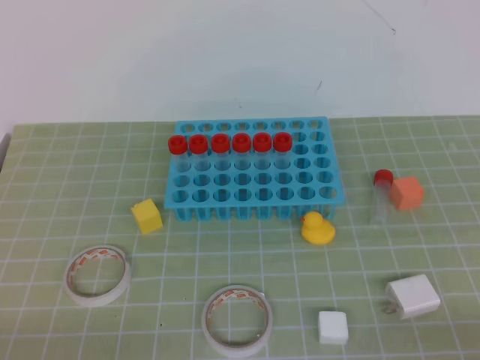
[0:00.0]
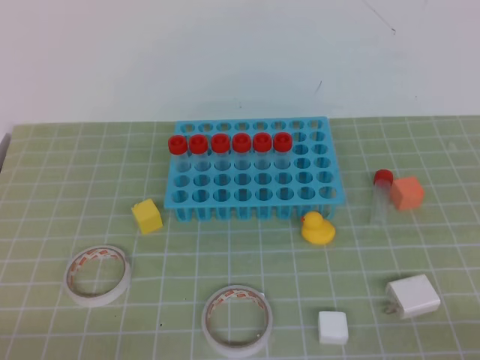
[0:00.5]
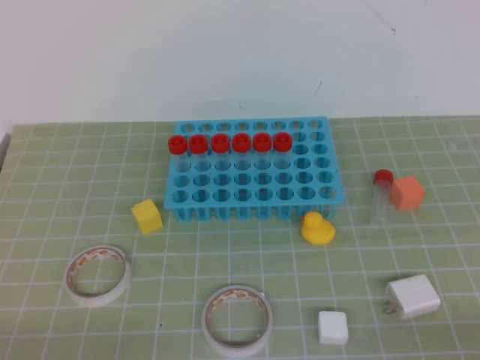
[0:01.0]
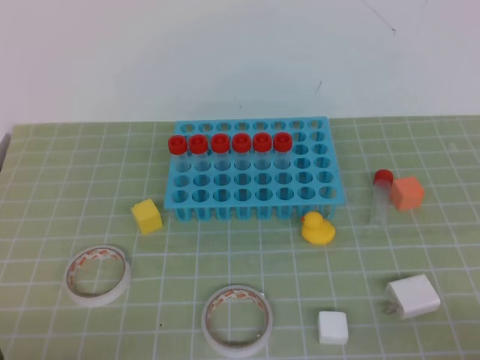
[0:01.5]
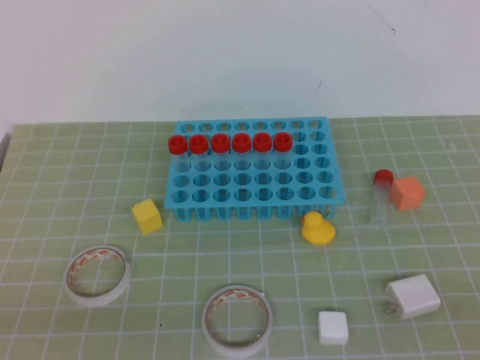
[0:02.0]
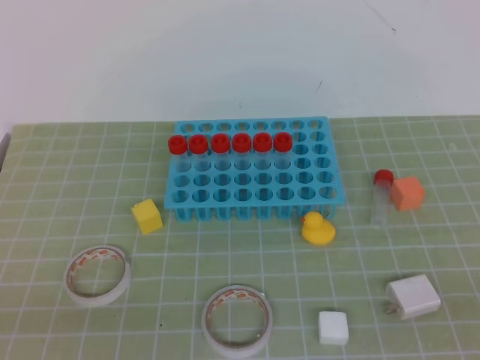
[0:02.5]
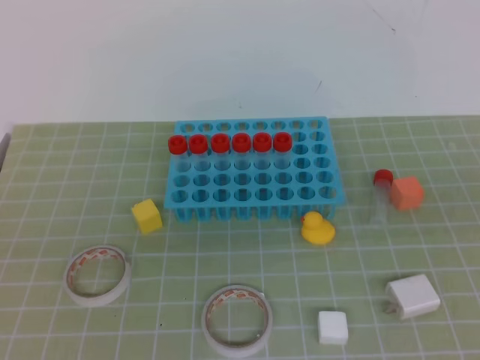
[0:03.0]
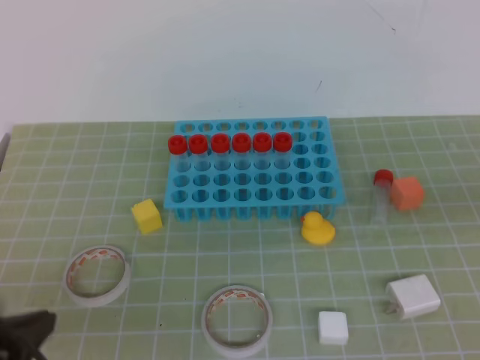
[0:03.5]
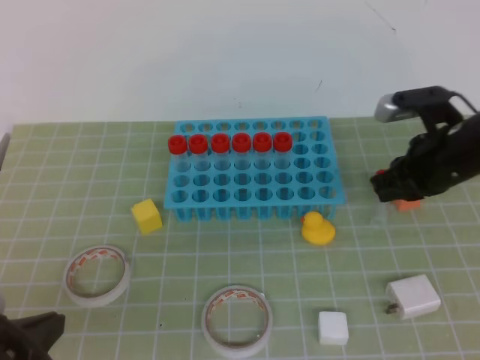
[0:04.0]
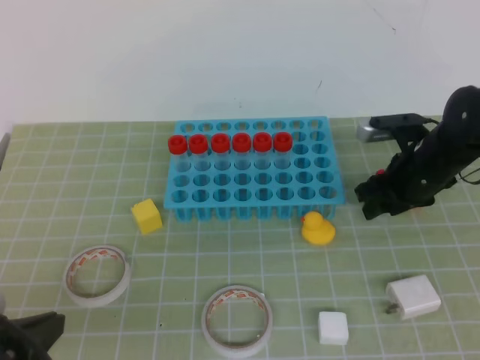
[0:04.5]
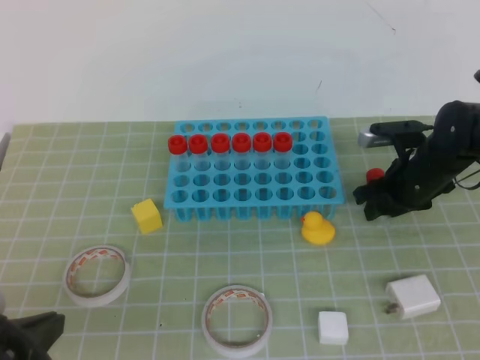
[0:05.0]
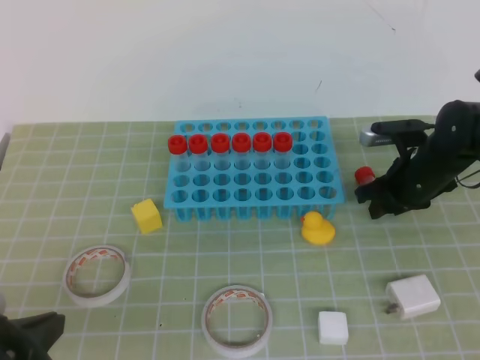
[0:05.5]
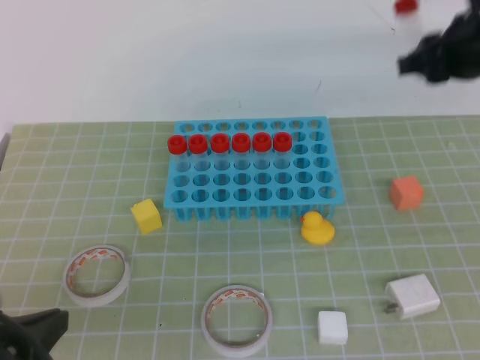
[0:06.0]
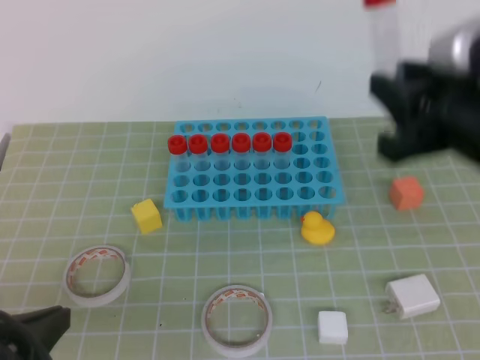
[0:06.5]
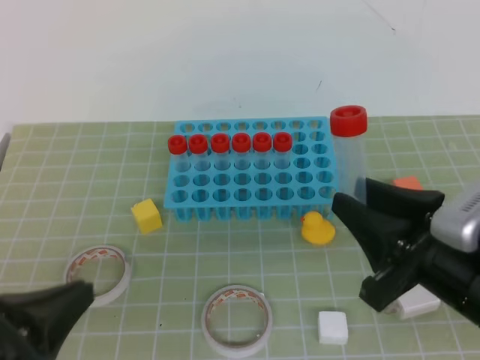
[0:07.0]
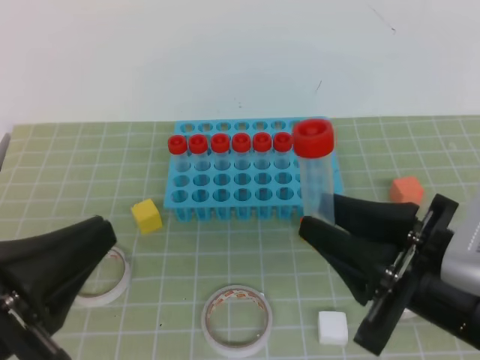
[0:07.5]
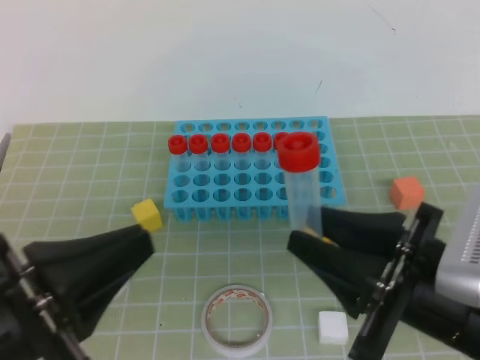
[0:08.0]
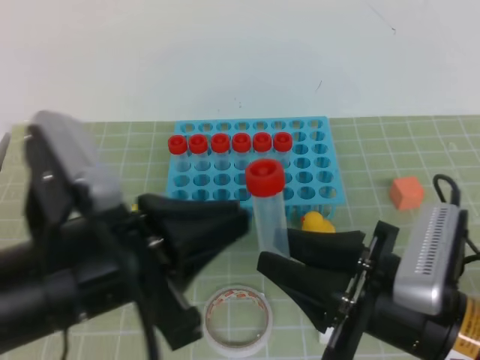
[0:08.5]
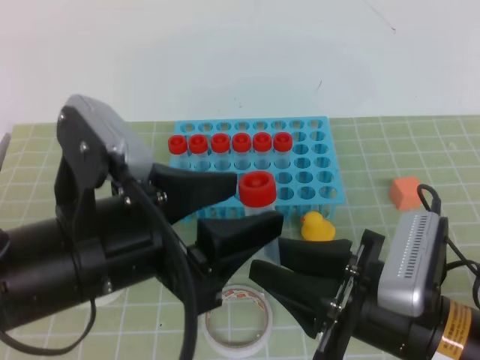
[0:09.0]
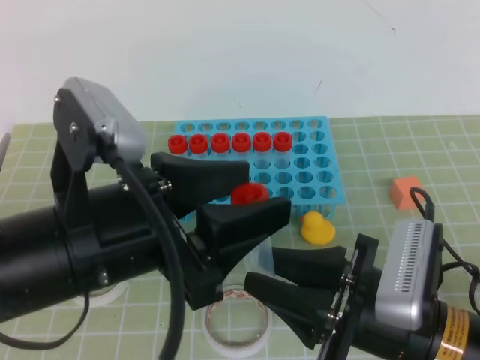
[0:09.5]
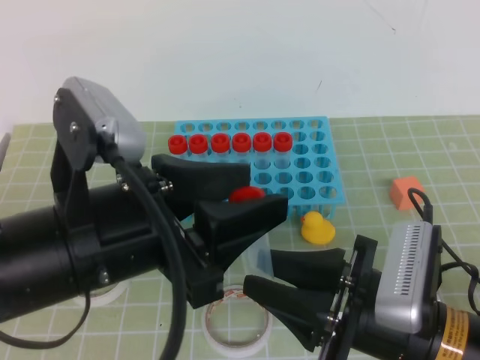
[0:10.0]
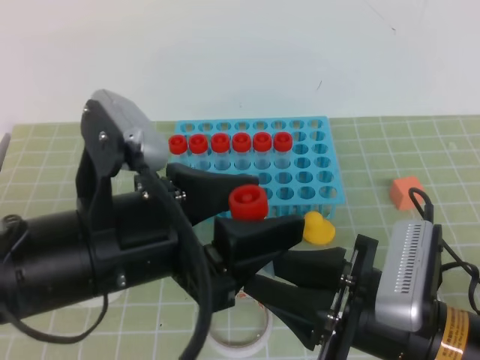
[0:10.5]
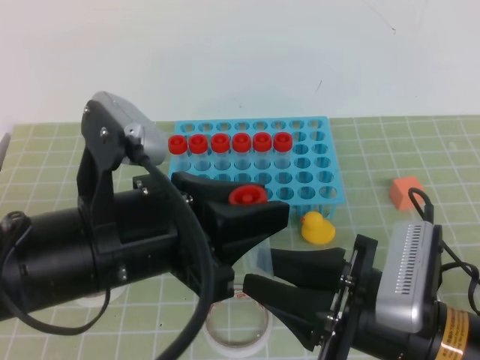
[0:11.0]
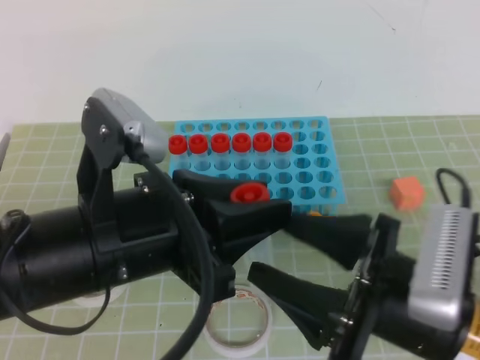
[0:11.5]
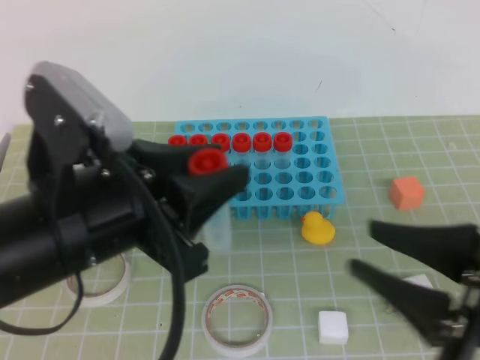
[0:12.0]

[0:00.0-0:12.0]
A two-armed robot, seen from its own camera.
0:02.0 to 0:04.0: The right gripper is displaced forward by some 30 cm, while the left gripper shifts approximately 5 cm forward, and goes upward and returns, about 10 cm each way.
0:04.0 to 0:06.0: The right gripper is displaced upward by about 10 cm, and opens its fingers.
0:06.0 to 0:08.0: The right gripper travels backward by roughly 25 cm. Meanwhile the left gripper goes about 5 cm upward.
0:08.0 to 0:10.0: The left gripper travels to the right and forward by approximately 10 cm, and opens. The right gripper changes place by roughly 5 cm.
0:10.0 to 0:12.0: The right gripper heads upward and to the right, covering some 10 cm. The left gripper closes its fingers.

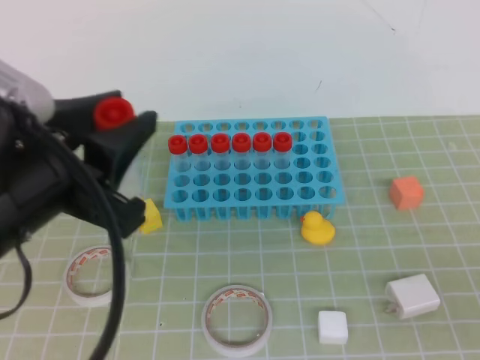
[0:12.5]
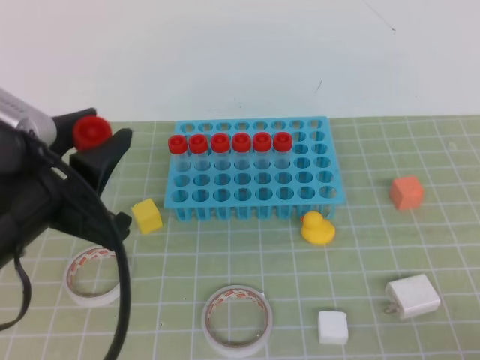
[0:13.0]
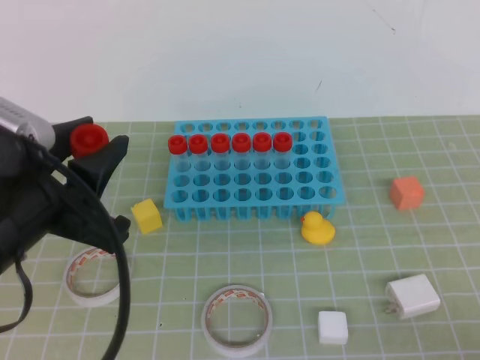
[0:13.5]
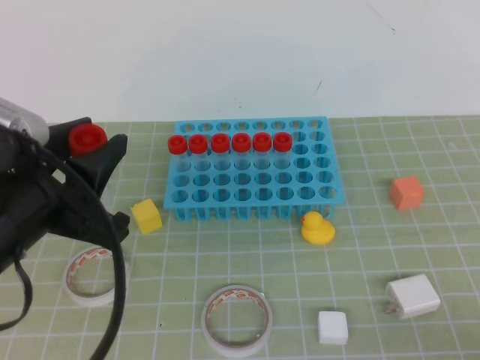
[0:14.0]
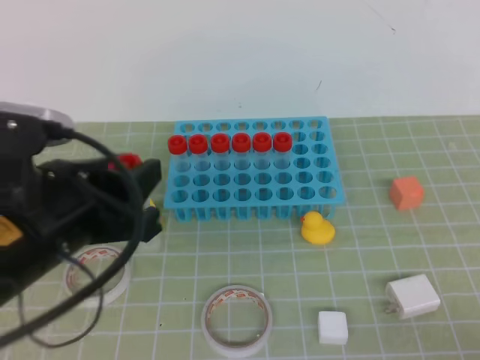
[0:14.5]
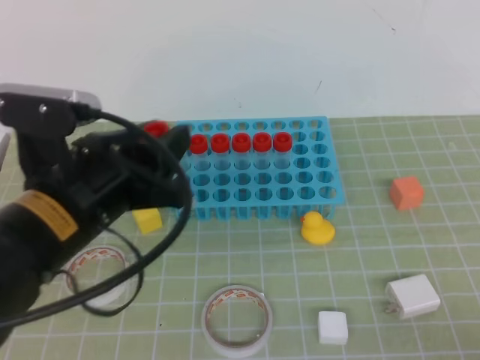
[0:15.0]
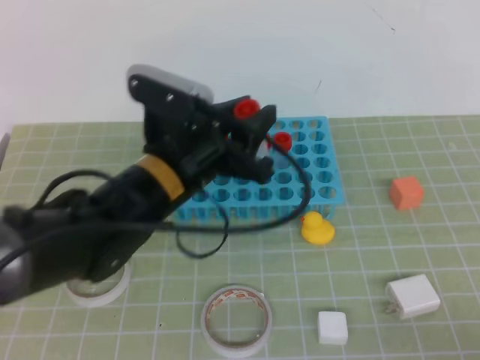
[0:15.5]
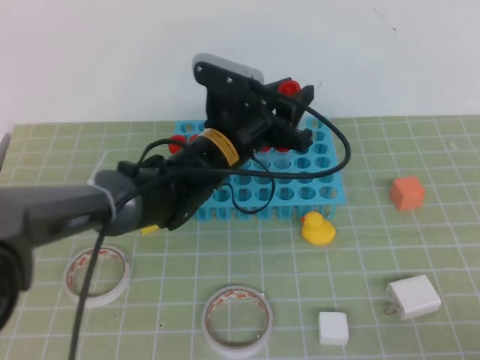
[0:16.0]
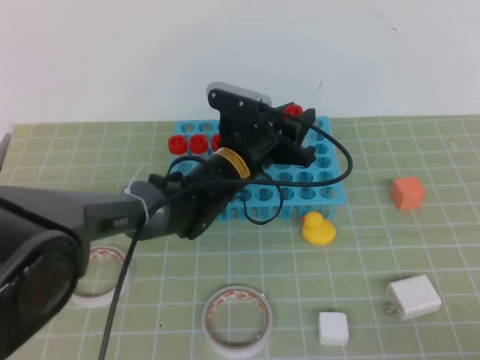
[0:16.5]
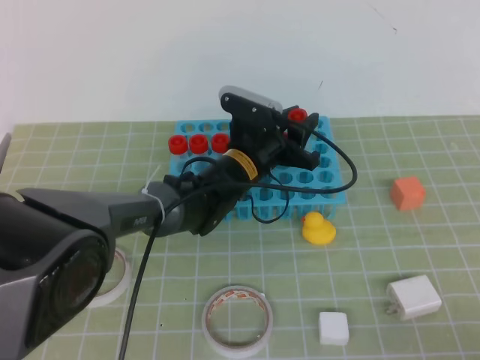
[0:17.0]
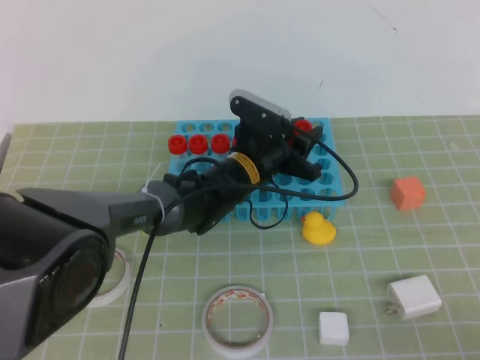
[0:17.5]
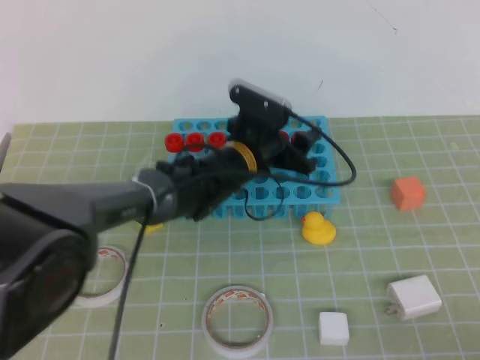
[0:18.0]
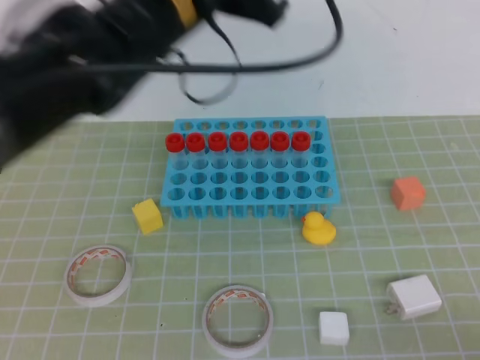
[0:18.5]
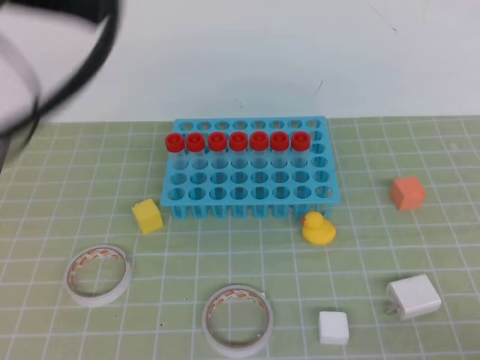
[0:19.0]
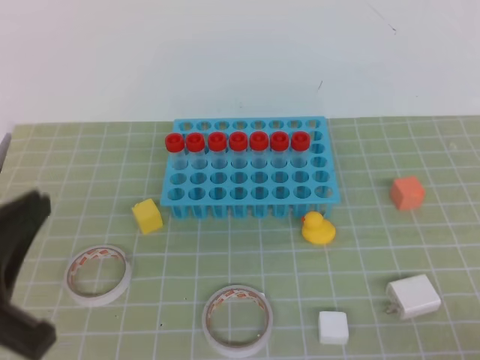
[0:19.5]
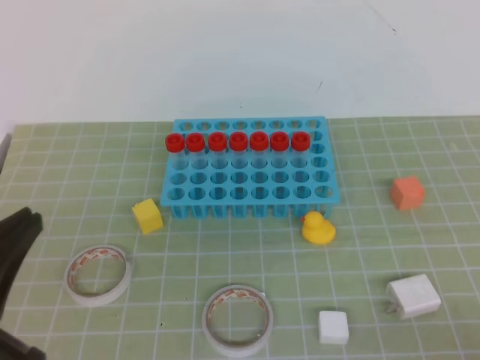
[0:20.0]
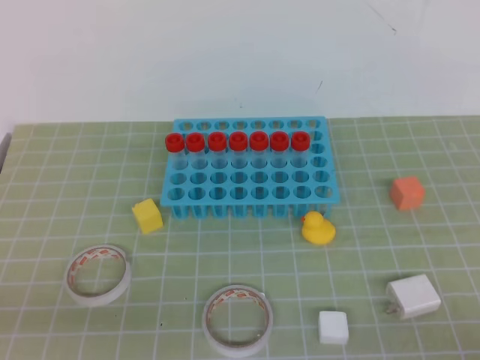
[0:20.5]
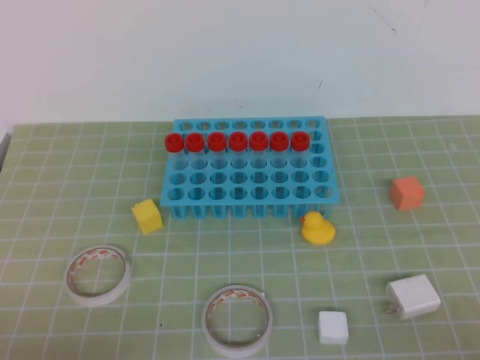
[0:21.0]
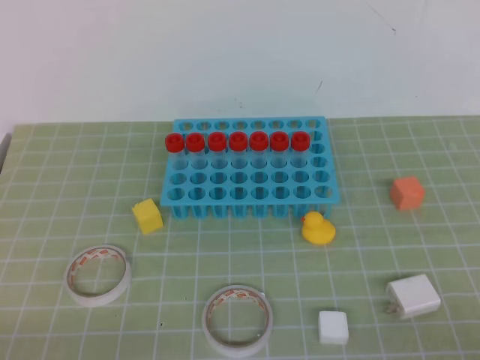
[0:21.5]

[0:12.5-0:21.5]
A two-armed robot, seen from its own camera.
0:12.5 to 0:14.5: The right gripper shifts by about 5 cm.
0:14.5 to 0:17.0: The left gripper travels forward, to the right and downward by about 35 cm.
0:17.0 to 0:19.5: The left gripper travels backward, to the left and upward by roughly 40 cm, and closes its fingers.
0:19.5 to 0:21.5: The left gripper travels downward by roughly 15 cm.

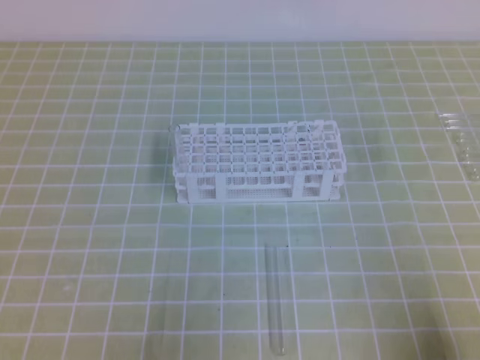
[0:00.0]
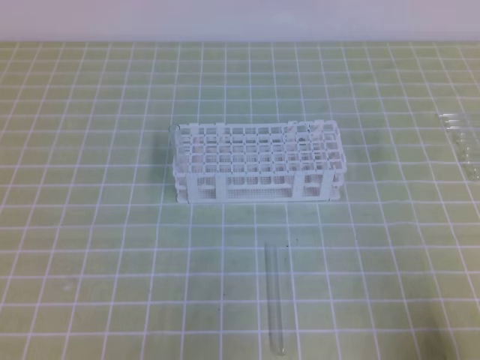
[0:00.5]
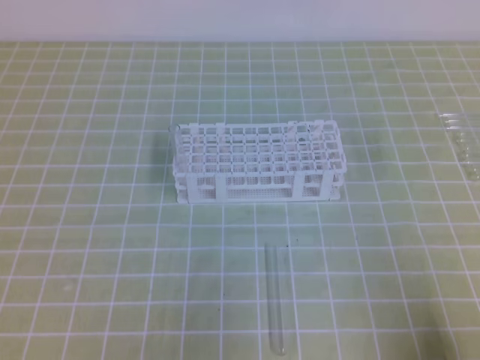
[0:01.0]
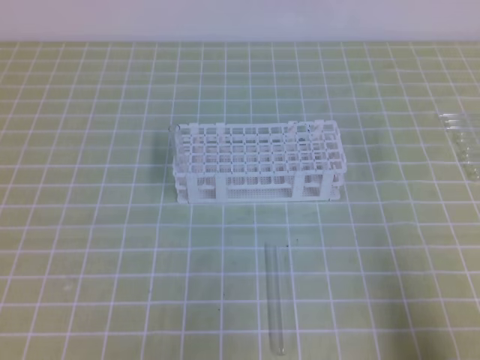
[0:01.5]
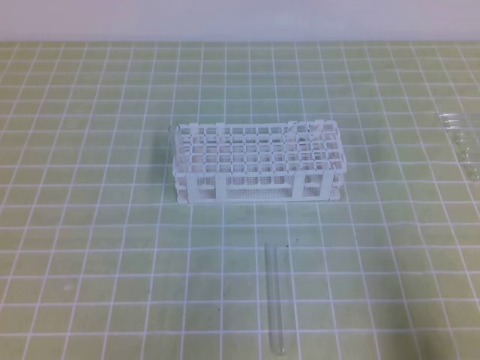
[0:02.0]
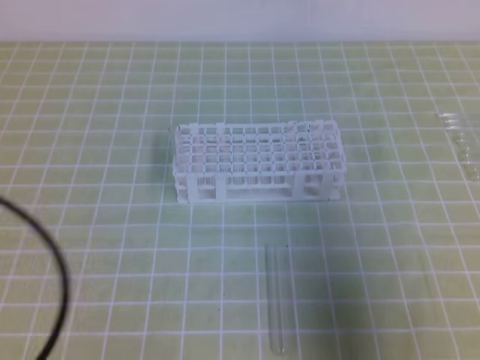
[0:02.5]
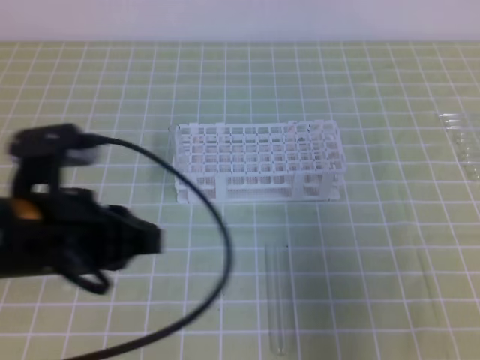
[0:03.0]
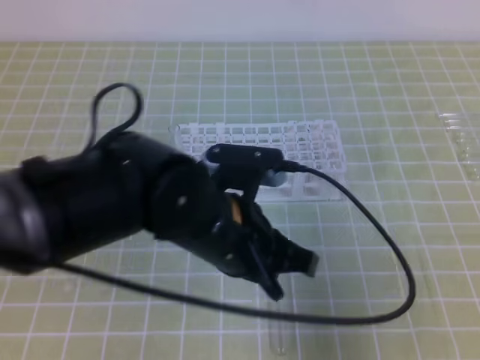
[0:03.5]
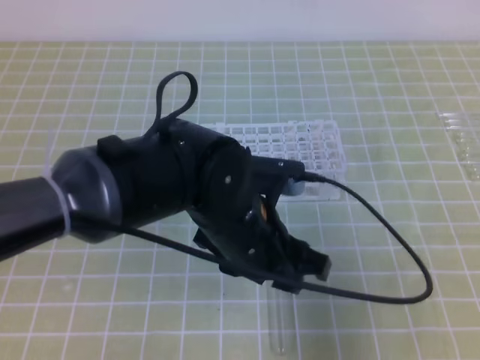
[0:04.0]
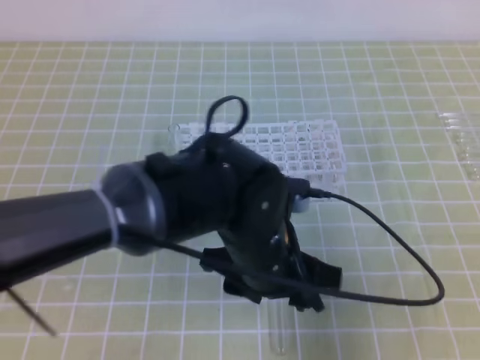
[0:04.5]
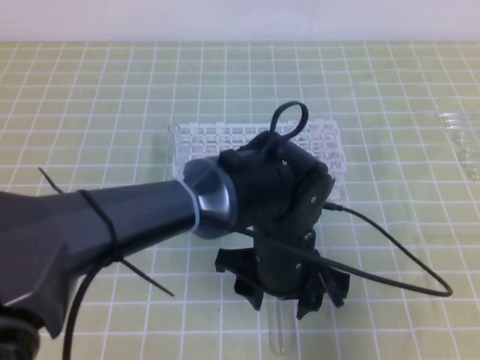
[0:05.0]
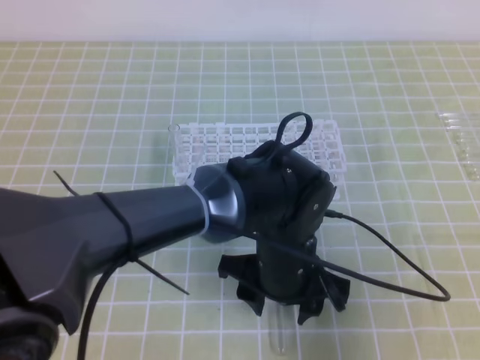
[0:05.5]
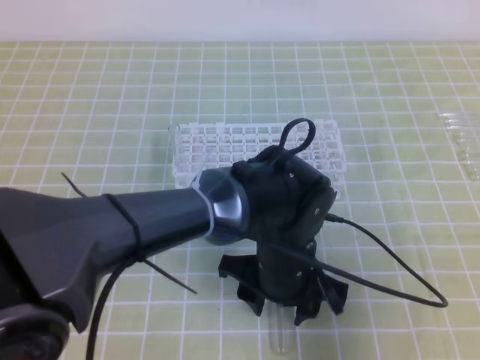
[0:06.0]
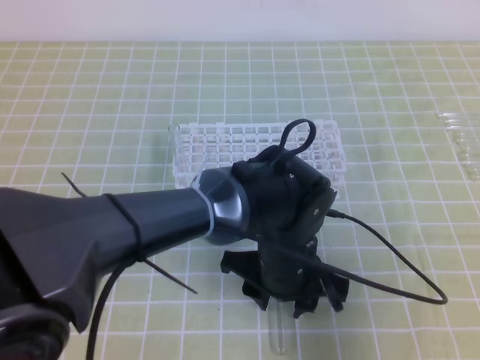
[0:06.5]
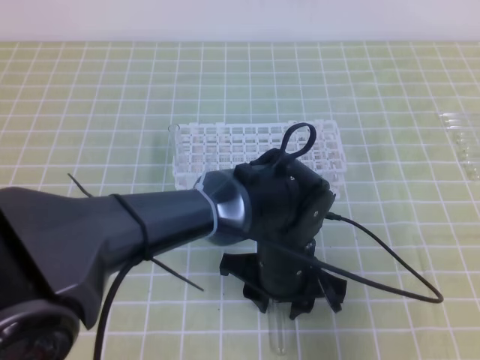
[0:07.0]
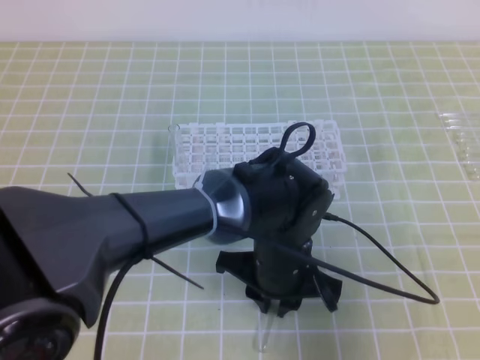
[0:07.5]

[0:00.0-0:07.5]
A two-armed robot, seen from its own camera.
0:02.0 to 0:04.0: The left gripper moves to the right and forward, about 30 cm, and opens its fingers, while the right gripper goes some 10 cm upward and forward.
0:04.0 to 0:05.5: The left gripper heads downward and to the right, covering some 10 cm.
0:05.5 to 0:07.5: The left gripper closes its fingers.
